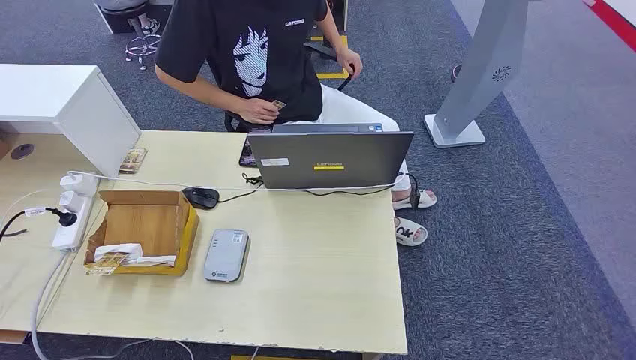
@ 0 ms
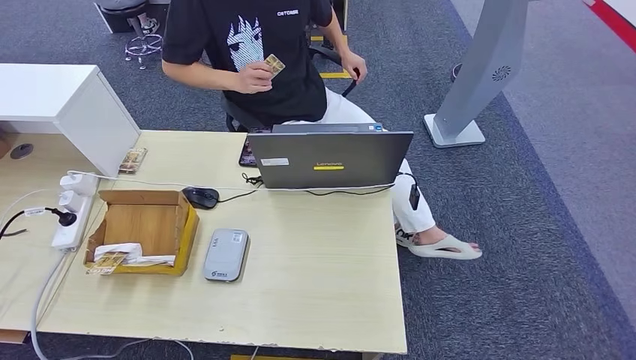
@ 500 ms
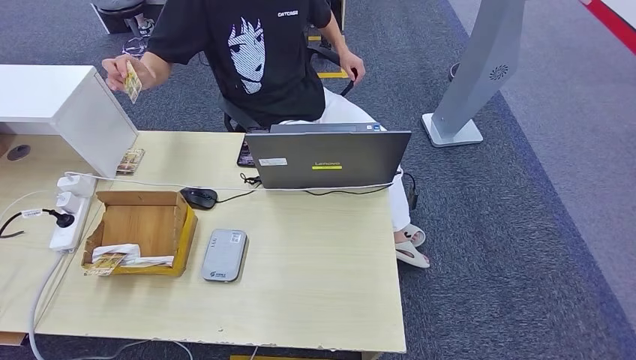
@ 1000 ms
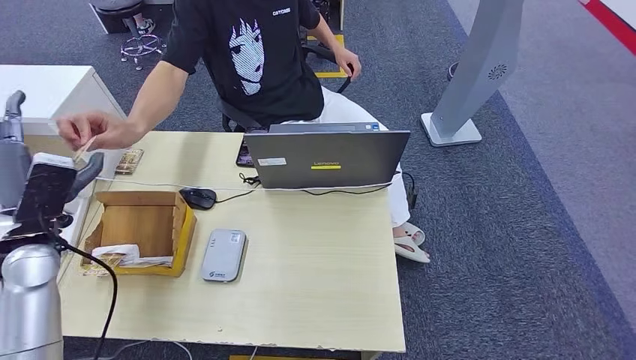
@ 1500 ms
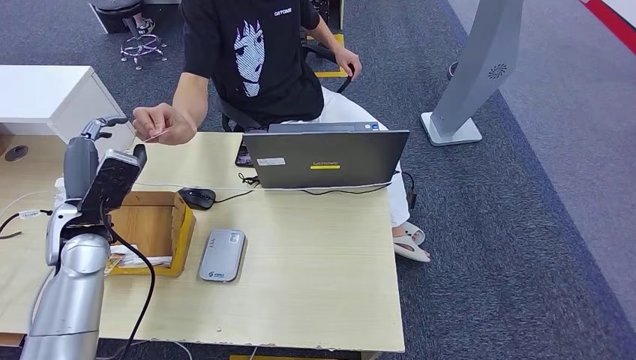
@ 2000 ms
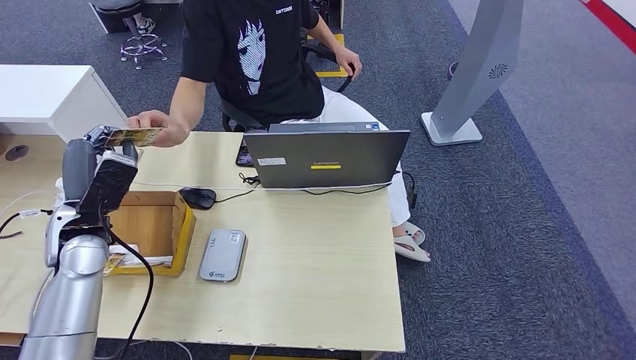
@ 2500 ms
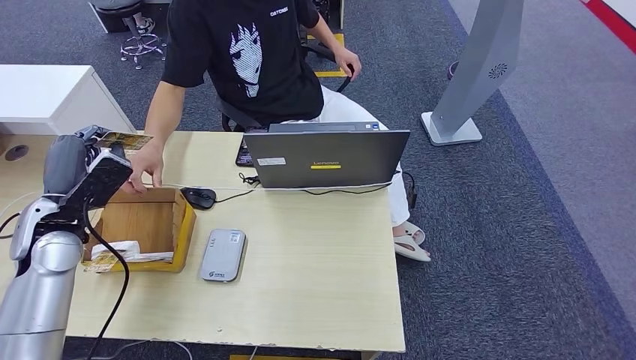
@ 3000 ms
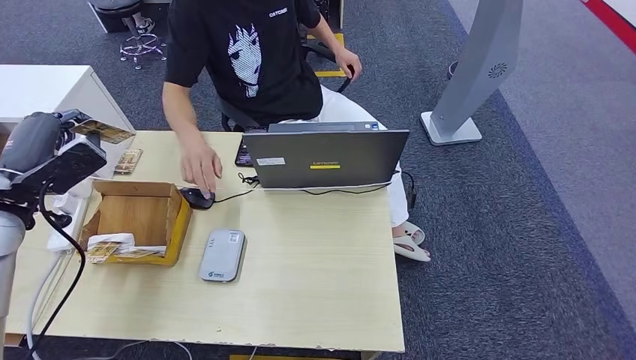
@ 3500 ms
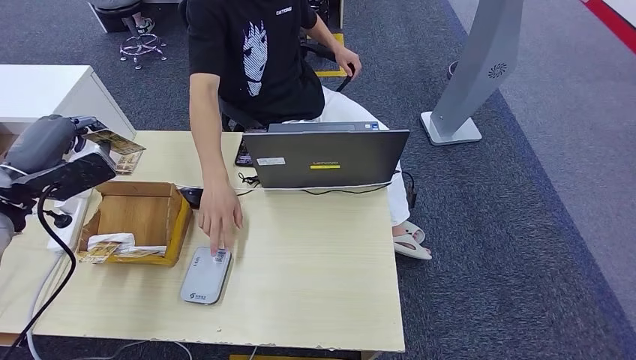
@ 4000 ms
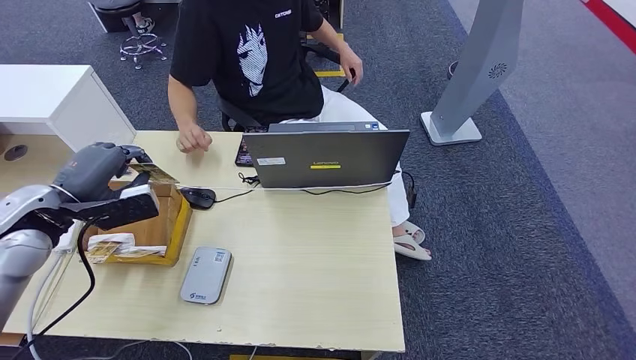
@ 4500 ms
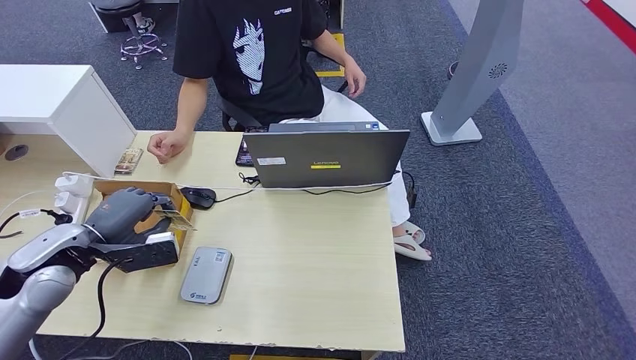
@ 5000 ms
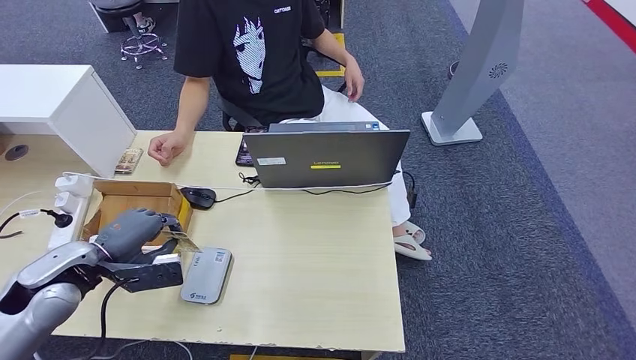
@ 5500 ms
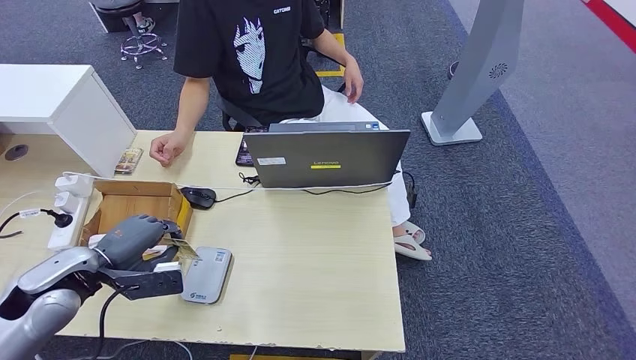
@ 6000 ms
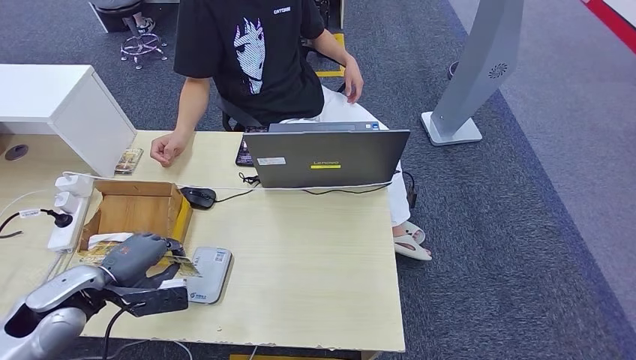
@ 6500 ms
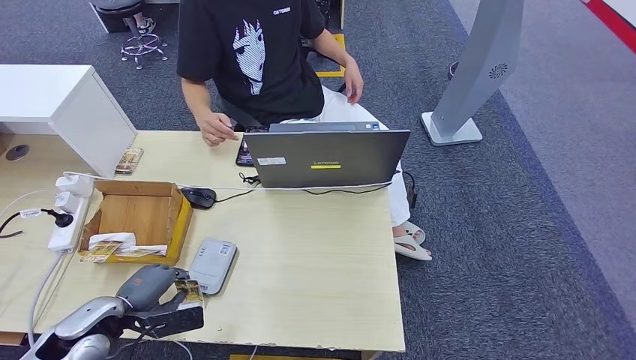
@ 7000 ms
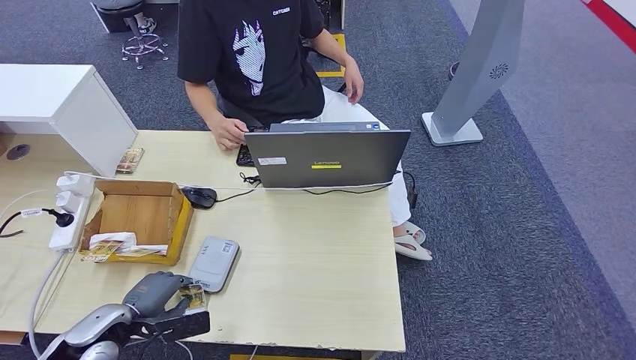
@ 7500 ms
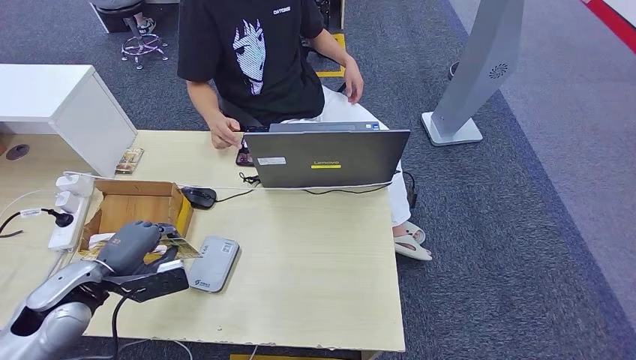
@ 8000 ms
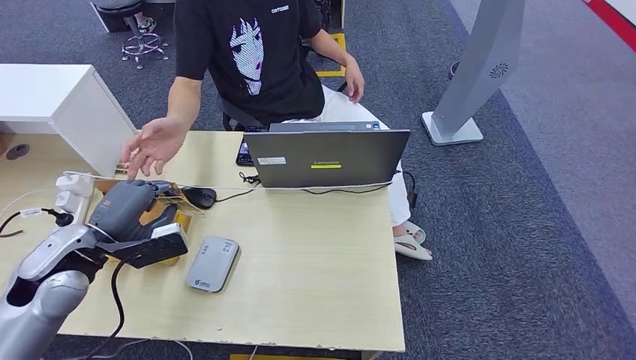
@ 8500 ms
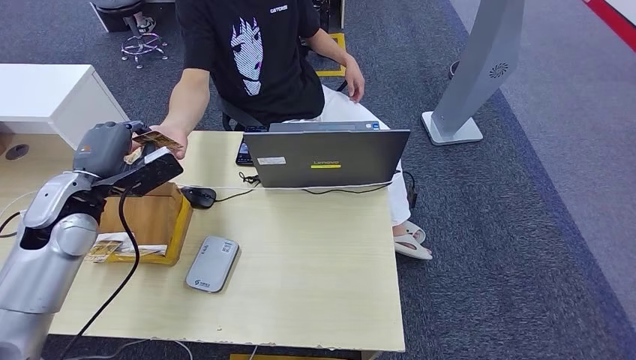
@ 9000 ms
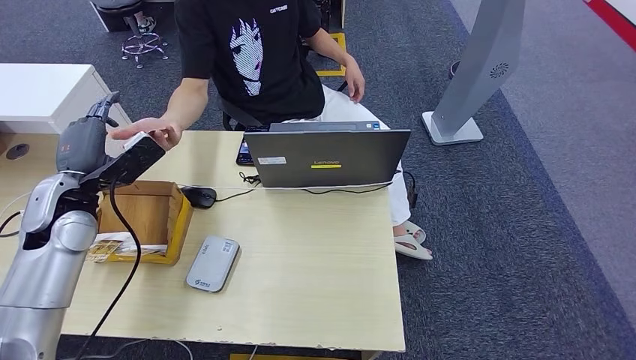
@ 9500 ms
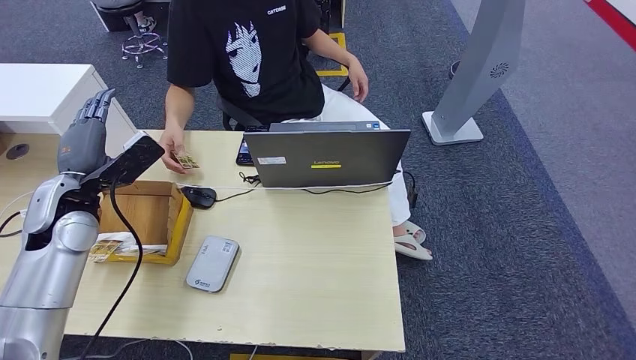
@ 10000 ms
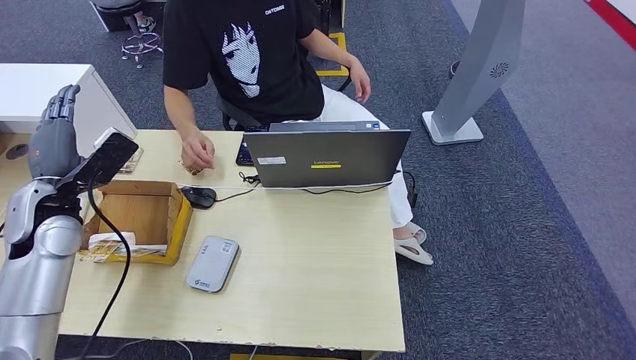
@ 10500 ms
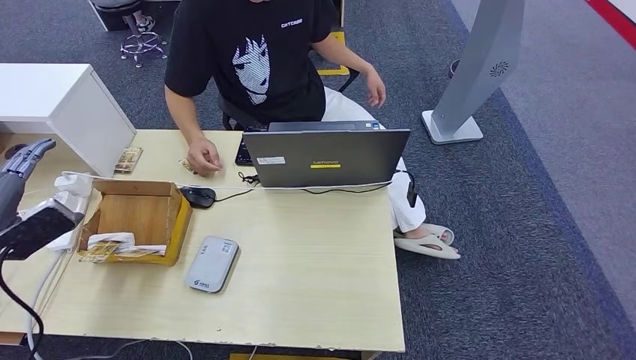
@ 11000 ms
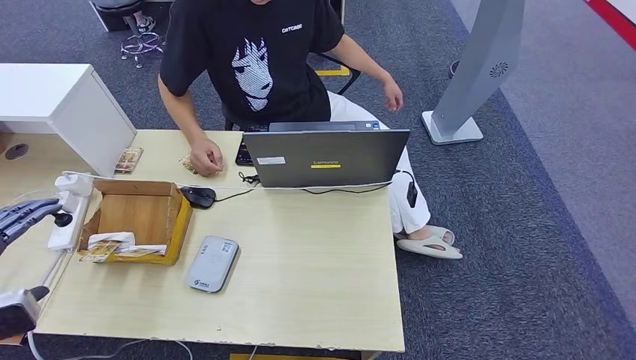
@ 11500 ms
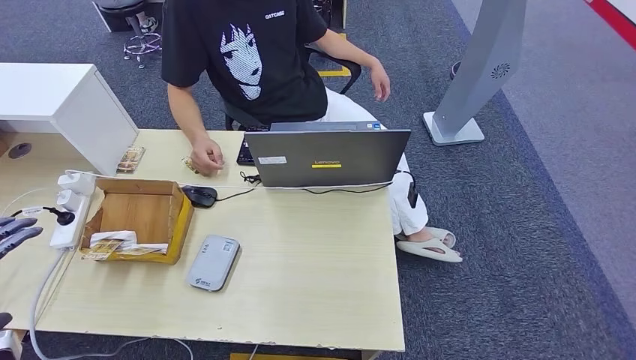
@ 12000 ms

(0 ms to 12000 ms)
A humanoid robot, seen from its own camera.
Step, 0 ms - 3000 ms: Take the ID card from the person's hand.
Step, 3500 ms - 7500 ms: Place the ID card on the card reader.
Step, 8000 ms - 10500 ms: Hand the ID card to the person.
2000 ms - 4000 ms: The left hand shifts approximately 10 cm to the left and upward.
4000 ms - 6000 ms: The left hand heads downward, backward and to the right, covering about 15 cm.
6000 ms - 8000 ms: The left hand moves about 10 cm downward and comes back.
8000 ms - 10000 ms: The left hand goes approximately 15 cm forward and upward.
10000 ms - 12000 ms: The left hand travels backward and to the left by about 30 cm.

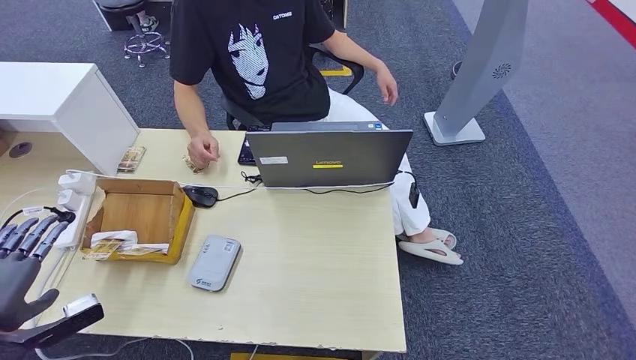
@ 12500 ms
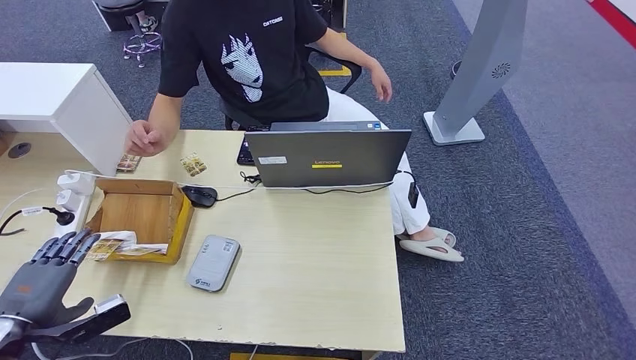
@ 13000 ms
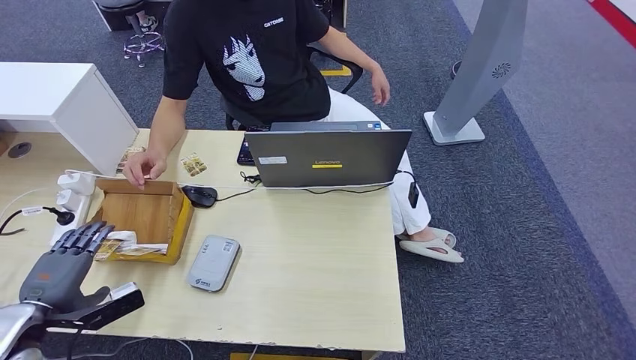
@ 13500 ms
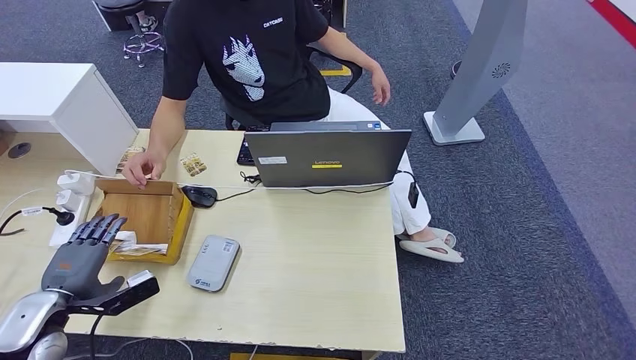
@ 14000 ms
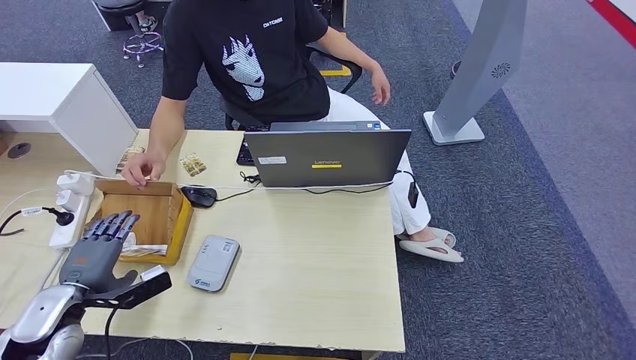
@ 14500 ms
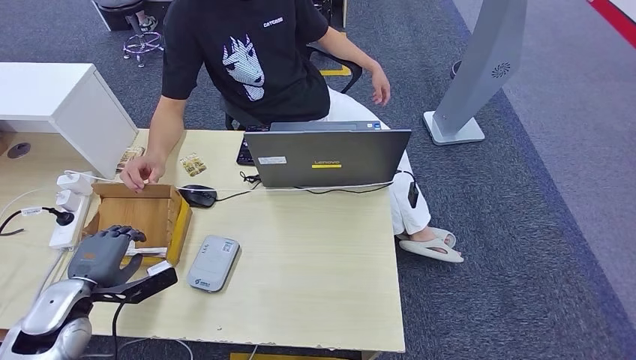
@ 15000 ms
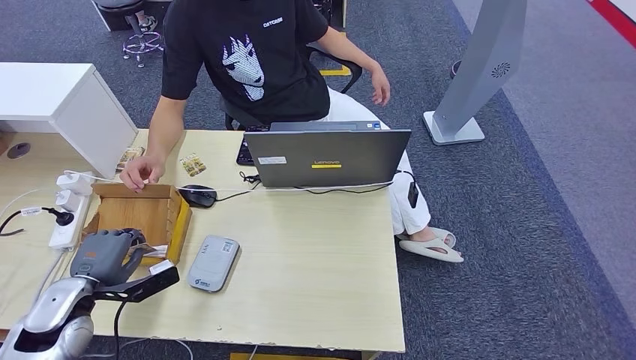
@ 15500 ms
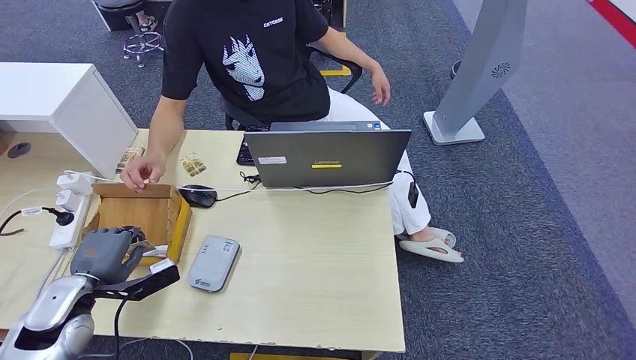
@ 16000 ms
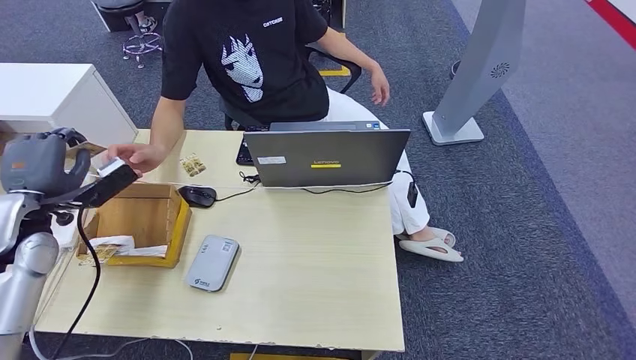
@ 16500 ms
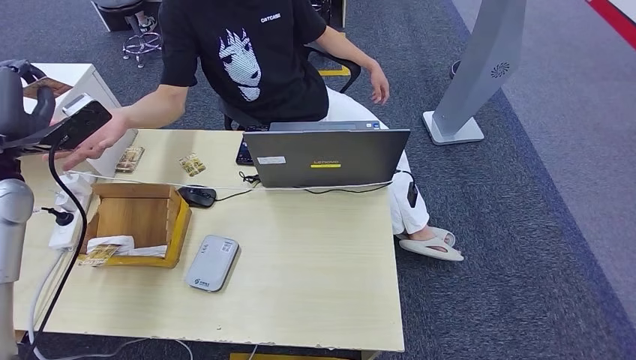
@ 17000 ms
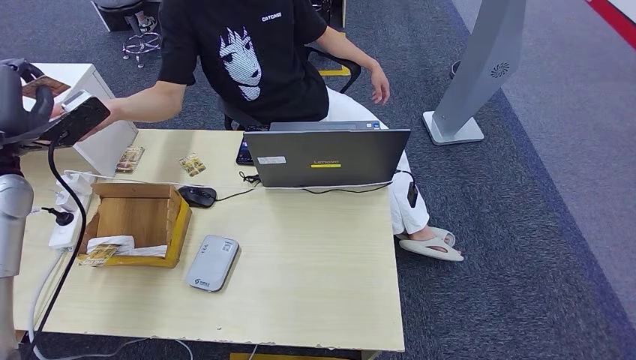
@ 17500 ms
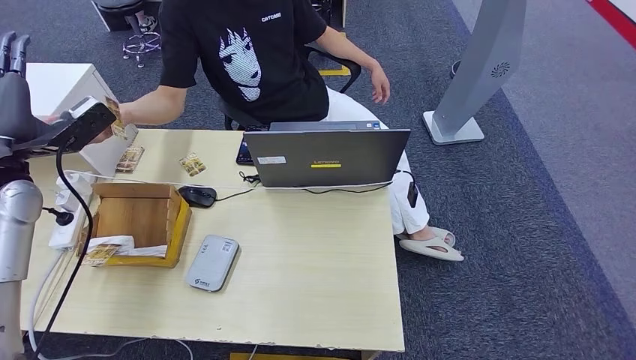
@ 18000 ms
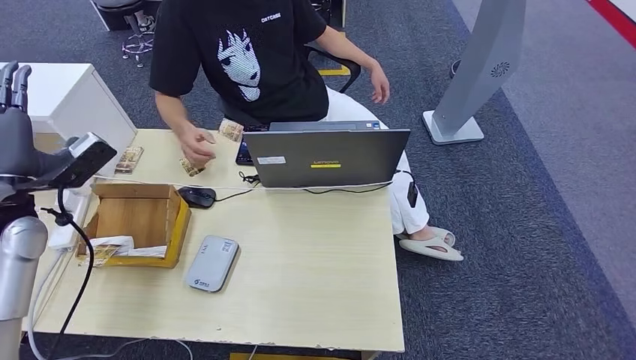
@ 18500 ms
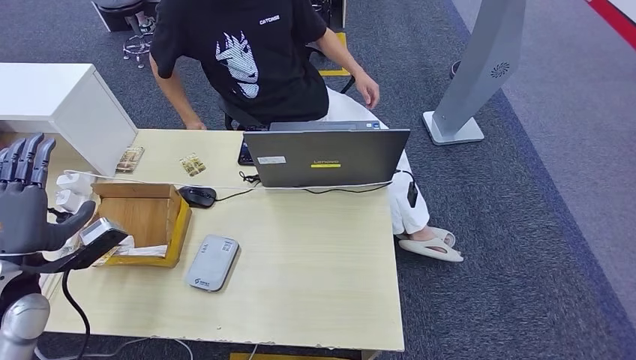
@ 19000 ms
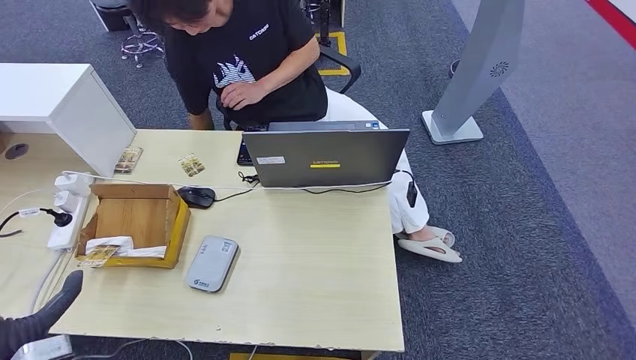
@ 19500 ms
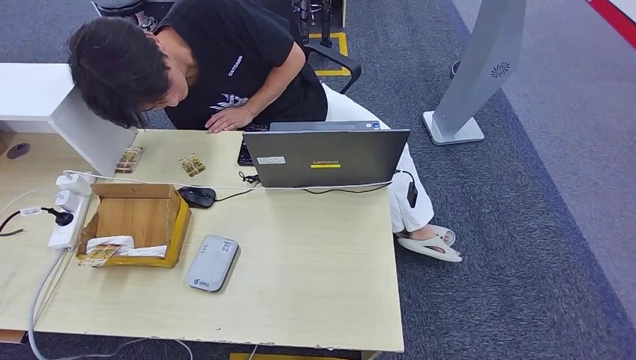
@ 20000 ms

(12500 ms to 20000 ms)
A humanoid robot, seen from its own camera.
Step, 12500 ms - 16000 ms: Pick up the room key from the key card box.
Step, 16500 ms - 20000 ms: Hand the room key to the person.
12500 ms - 14500 ms: The left hand goes roughly 15 cm forward, downward and to the right.
14500 ms - 16500 ms: The left hand goes approximately 15 cm upward and forward.
16500 ms - 18000 ms: The left hand goes some 10 cm upward.
18000 ms - 20000 ms: The left hand shifts approximately 35 cm backward and downward.
